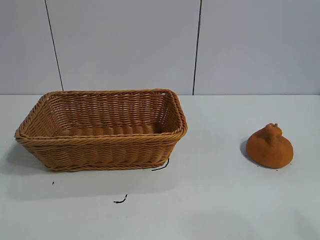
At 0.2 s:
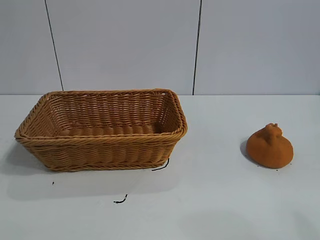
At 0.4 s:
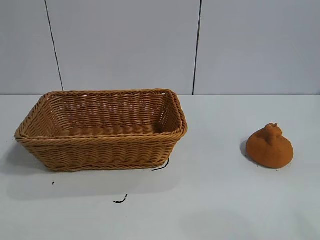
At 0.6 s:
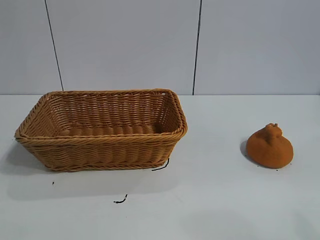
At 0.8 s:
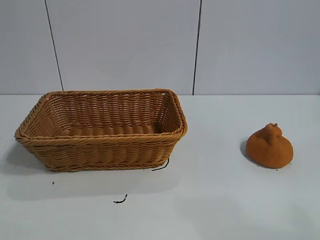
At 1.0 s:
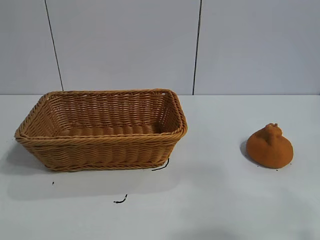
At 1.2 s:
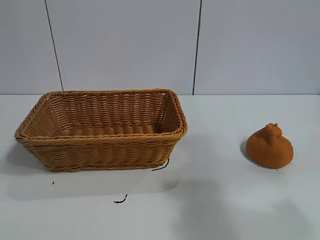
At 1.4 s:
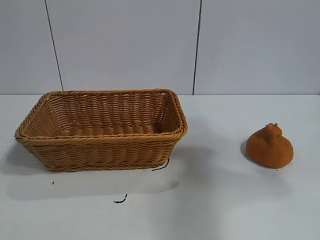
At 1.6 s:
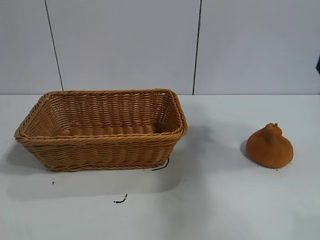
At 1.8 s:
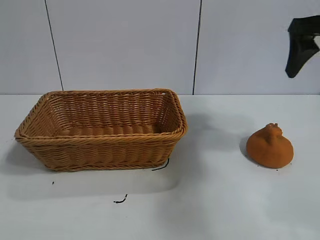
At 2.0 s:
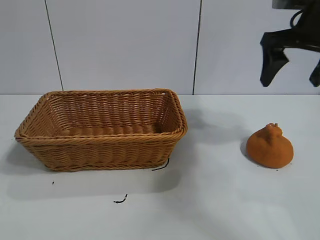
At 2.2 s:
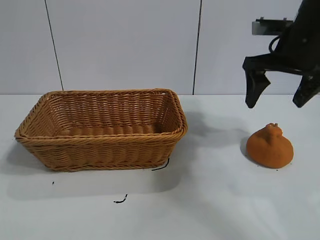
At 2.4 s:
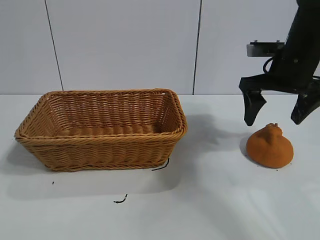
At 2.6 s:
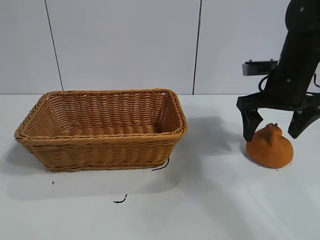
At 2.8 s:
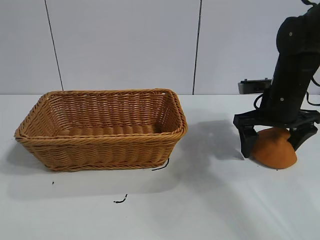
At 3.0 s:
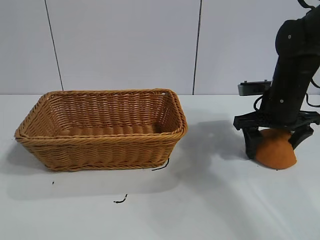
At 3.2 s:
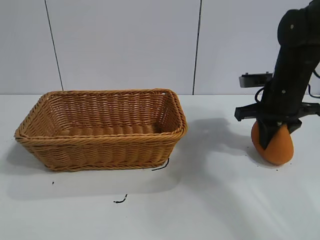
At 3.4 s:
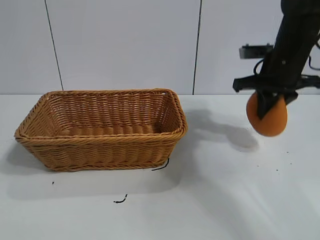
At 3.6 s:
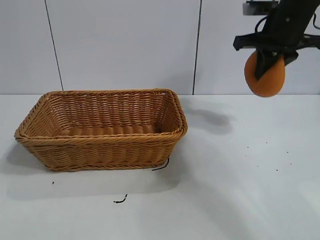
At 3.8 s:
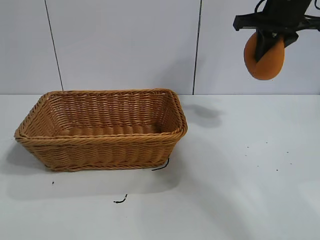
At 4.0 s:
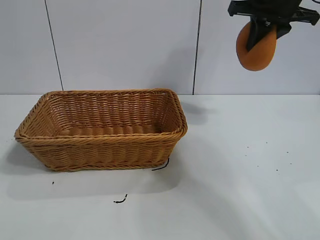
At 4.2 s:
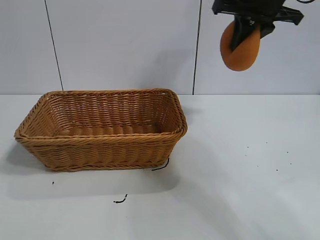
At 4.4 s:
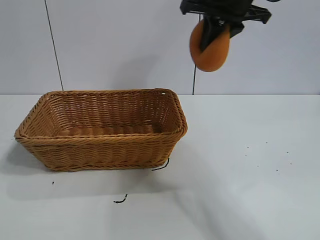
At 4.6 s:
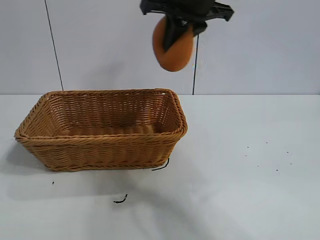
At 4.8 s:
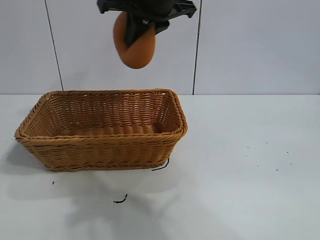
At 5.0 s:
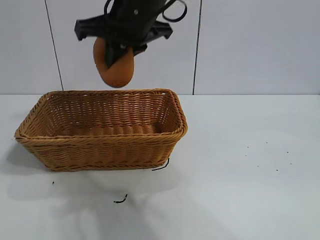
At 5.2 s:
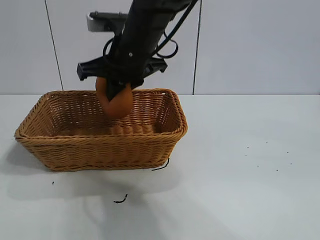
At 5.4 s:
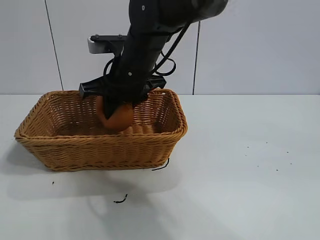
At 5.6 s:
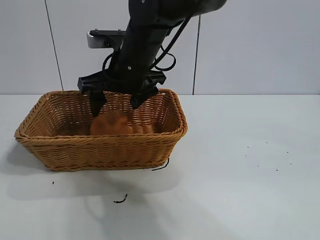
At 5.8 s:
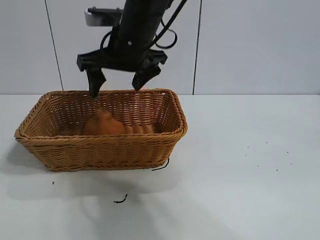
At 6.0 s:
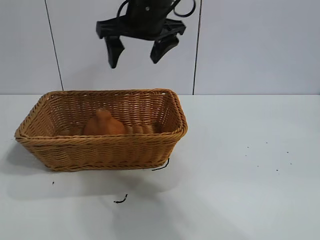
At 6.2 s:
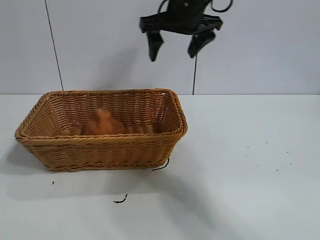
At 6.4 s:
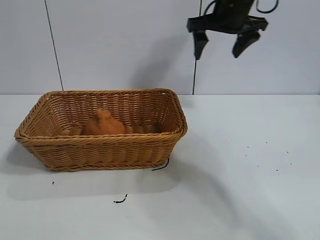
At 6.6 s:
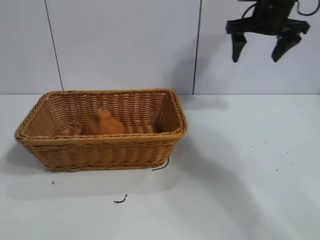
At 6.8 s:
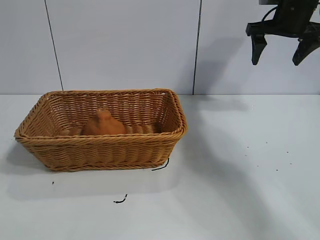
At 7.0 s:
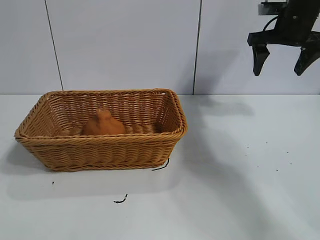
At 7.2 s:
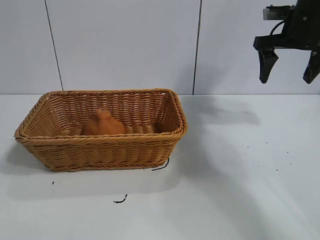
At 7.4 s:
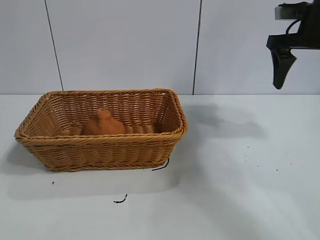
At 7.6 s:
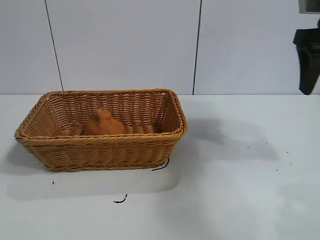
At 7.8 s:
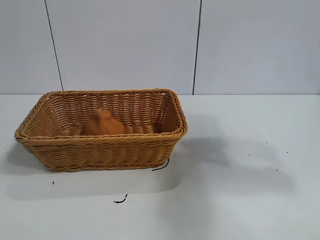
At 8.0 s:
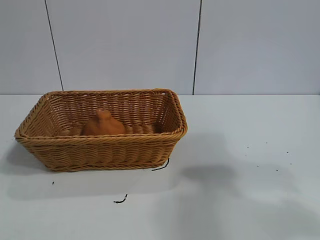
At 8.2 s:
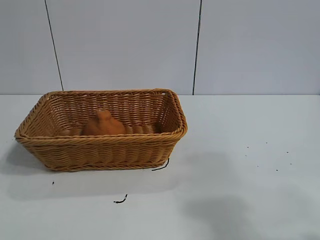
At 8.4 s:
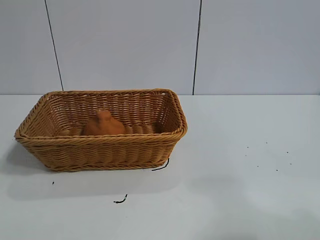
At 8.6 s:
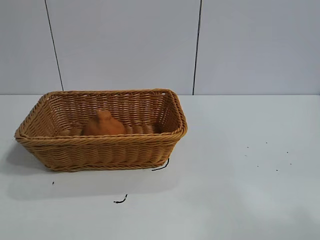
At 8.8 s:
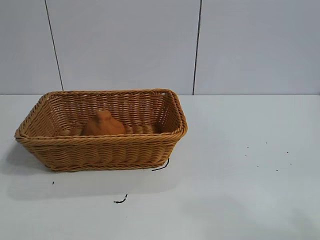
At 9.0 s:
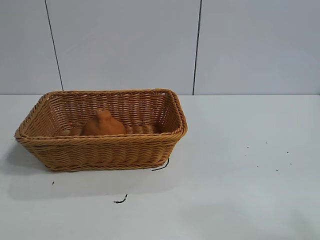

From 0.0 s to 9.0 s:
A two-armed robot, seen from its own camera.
Task of the whole recording: pick up the orange and put it into the basket.
Step, from 0.8 s to 3.2 s: Grasp the orange with right gripper.
Step, from 3.4 s to 5.6 s: Place the orange in the basket with right gripper.
